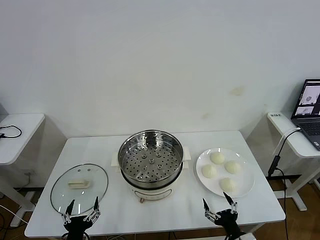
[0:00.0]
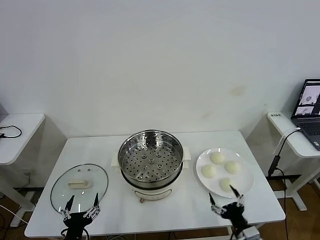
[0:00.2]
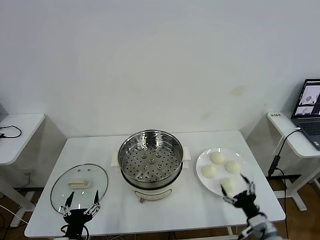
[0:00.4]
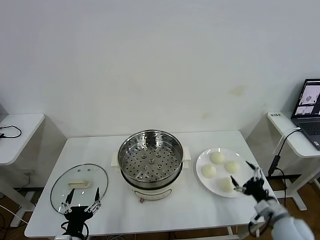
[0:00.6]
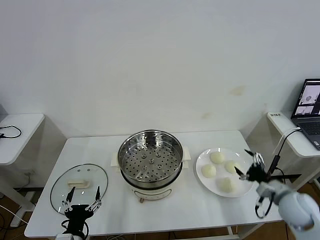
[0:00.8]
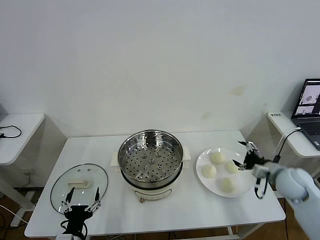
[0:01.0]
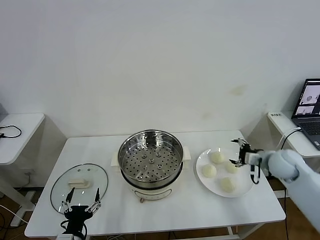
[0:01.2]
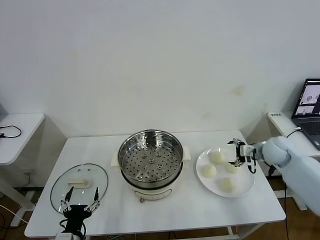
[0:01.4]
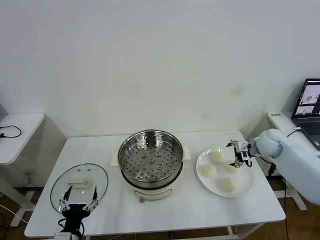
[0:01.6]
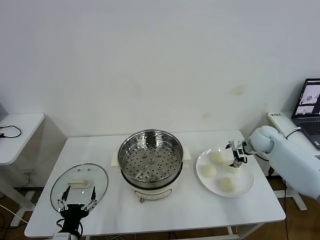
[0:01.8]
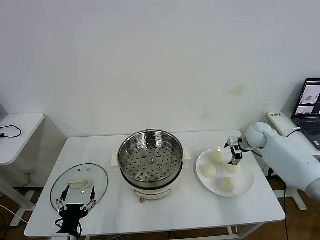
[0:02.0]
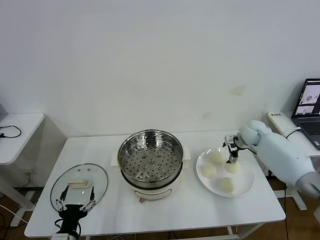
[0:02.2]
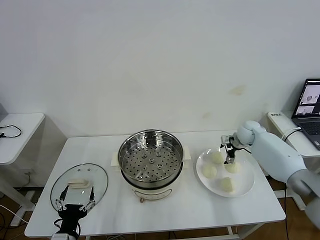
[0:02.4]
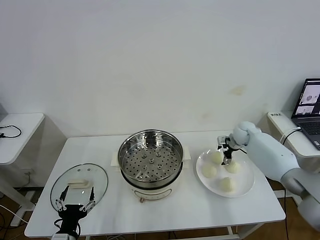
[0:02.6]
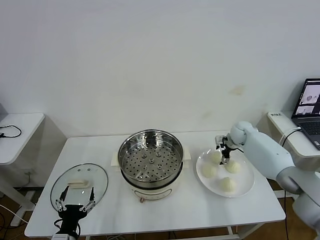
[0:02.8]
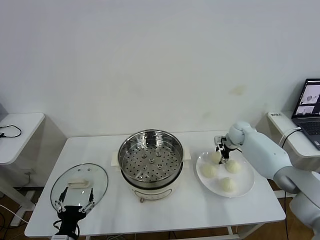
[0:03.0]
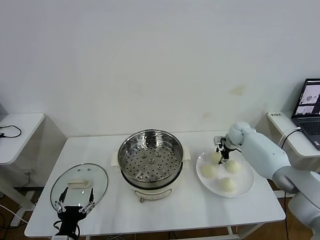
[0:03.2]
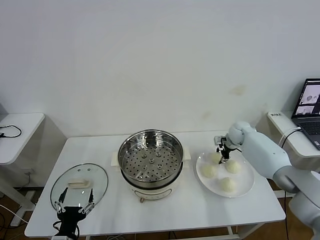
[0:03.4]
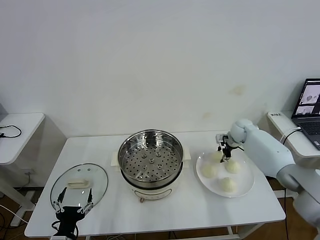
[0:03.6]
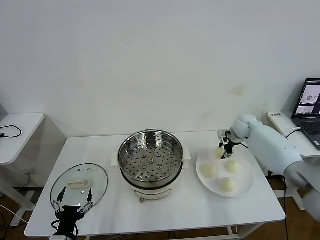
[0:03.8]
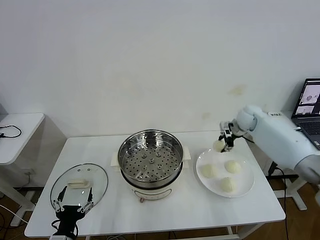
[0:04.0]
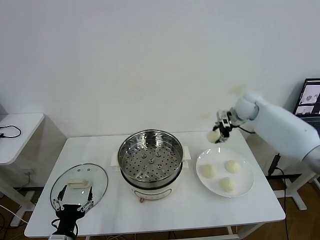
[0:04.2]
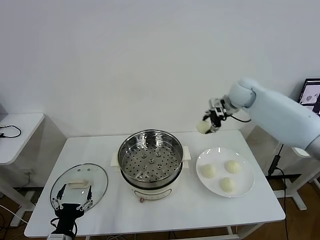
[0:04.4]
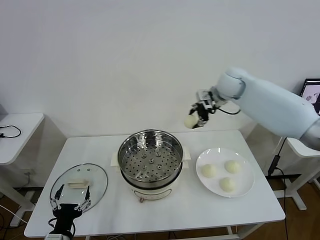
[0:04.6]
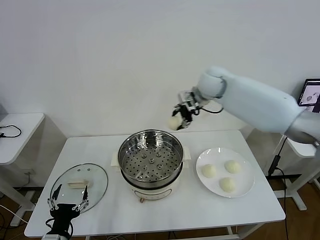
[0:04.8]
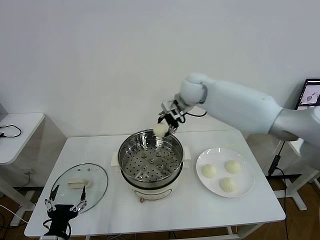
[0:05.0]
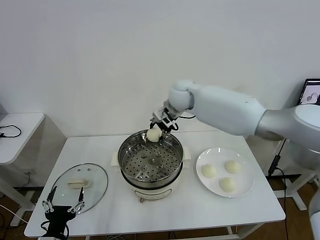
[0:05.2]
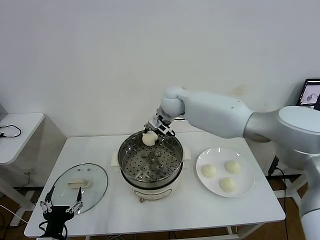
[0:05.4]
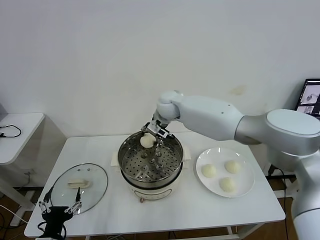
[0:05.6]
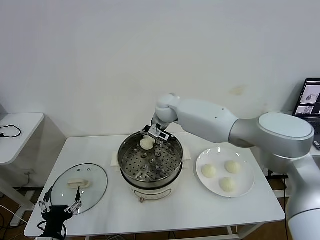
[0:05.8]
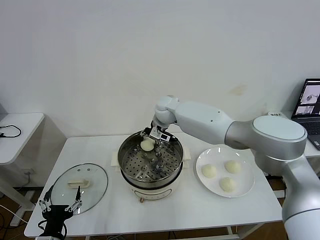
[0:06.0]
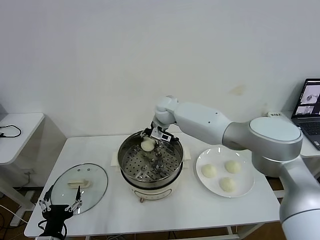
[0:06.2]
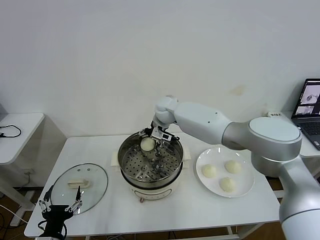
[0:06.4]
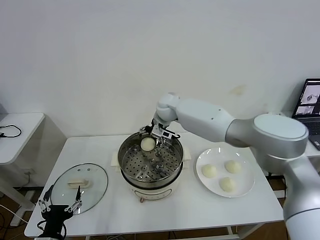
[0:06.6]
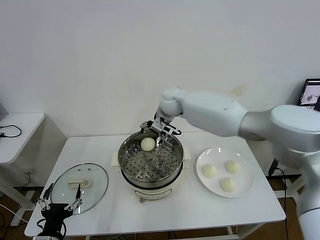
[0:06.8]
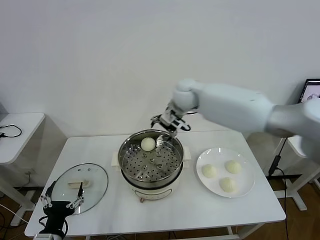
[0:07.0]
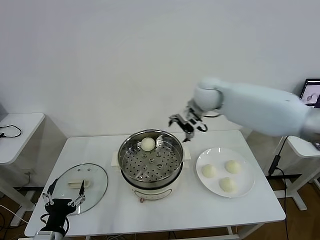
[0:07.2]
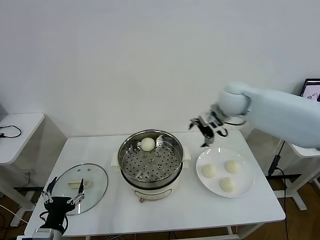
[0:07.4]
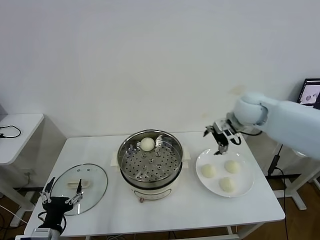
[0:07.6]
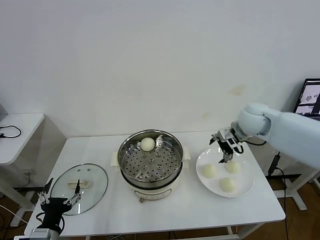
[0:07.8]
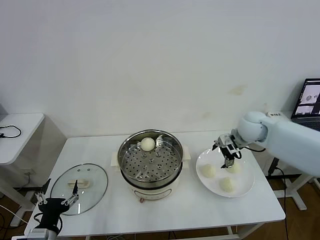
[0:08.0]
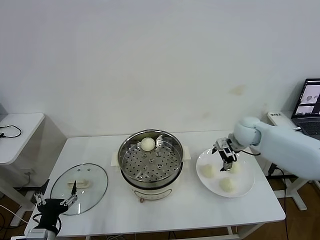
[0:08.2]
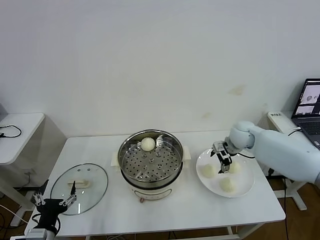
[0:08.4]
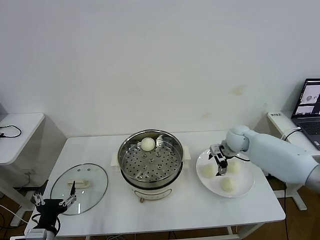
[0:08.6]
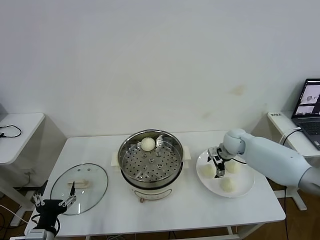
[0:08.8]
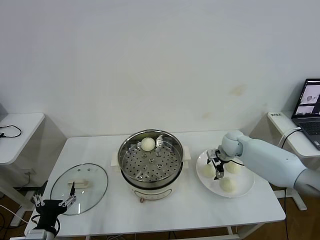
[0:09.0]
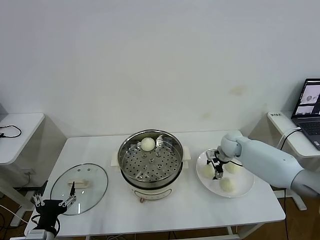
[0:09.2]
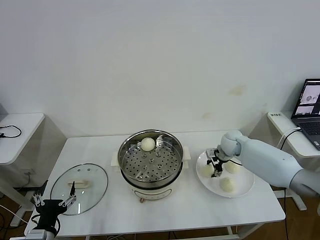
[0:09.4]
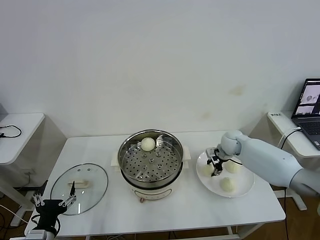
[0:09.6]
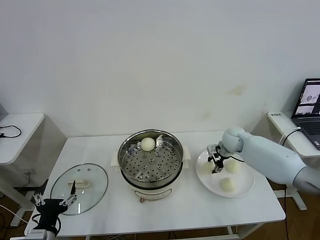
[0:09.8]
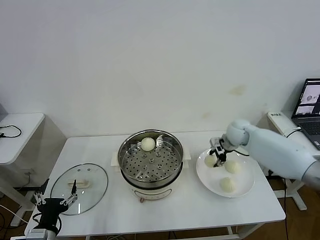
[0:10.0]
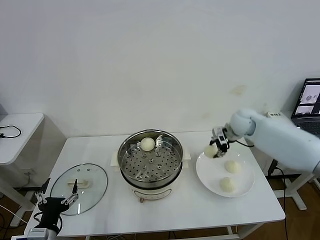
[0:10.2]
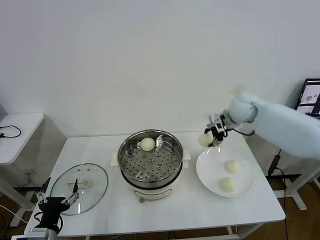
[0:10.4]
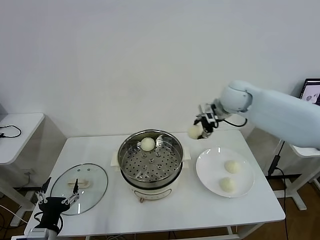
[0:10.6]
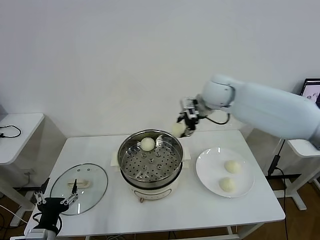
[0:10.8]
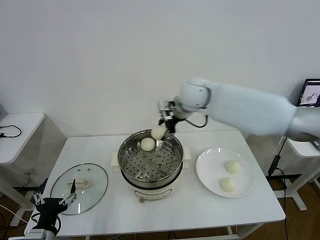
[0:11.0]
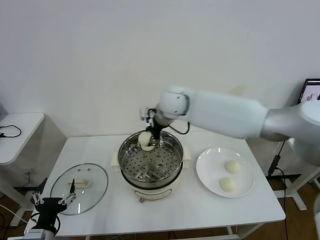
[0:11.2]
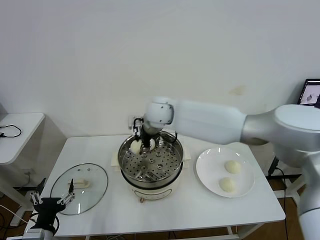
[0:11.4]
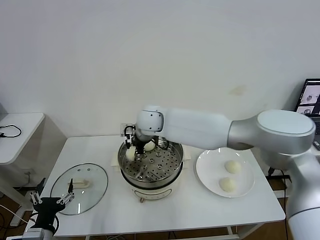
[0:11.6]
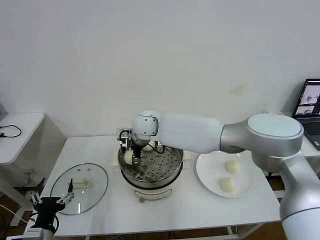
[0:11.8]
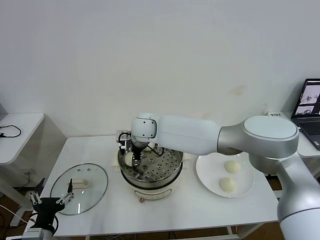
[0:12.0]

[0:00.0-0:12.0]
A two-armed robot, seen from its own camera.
Task of the whole recording: take steamed baozi put them in steamer then cover it.
Step, 0:00.0 to 0:03.0: Grasp the baozi in the plate with right gripper.
Step, 0:03.2 to 0:06.4: Place the baozi on the steamer with right gripper.
Step, 0:06.6 to 0:09.4: Grasp the baozi in the plate with right gripper.
0:01.6 to 0:03.0: The right gripper shifts approximately 15 cm forward, to the left and downward, and closes.
0:03.0 to 0:04.4: The right gripper is displaced upward by about 20 cm, and closes up.
0:04.4 to 0:06.0: The right gripper travels to the left by roughly 25 cm.
0:06.0 to 0:07.6: The right gripper shifts roughly 25 cm to the right, and opens up.
0:07.6 to 0:09.0: The right gripper travels downward by roughly 20 cm.
0:09.0 to 0:10.4: The right gripper heads upward, covering roughly 15 cm, and closes its fingers.
0:10.4 to 0:12.0: The right gripper moves to the left, some 35 cm.

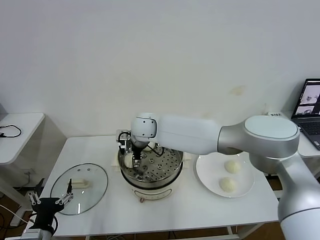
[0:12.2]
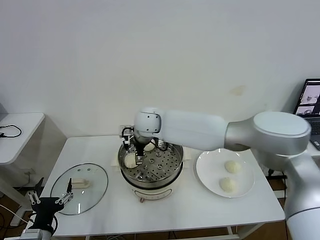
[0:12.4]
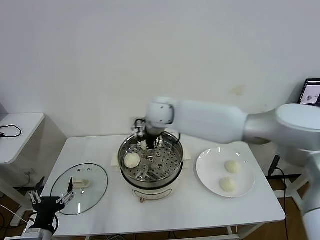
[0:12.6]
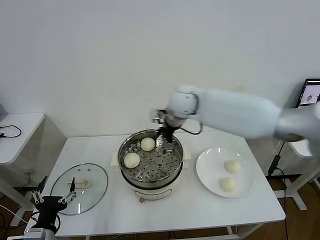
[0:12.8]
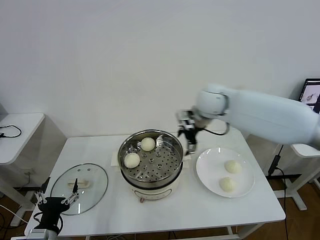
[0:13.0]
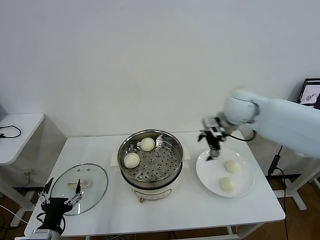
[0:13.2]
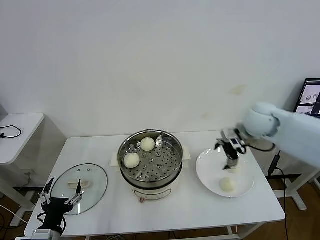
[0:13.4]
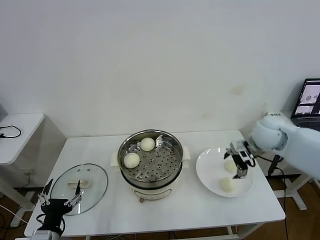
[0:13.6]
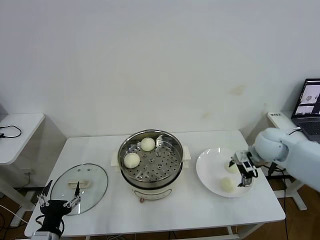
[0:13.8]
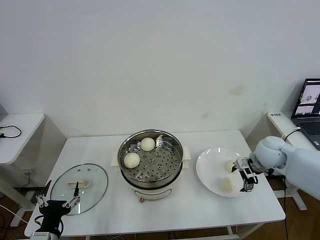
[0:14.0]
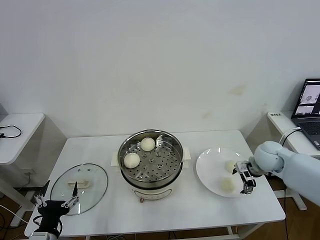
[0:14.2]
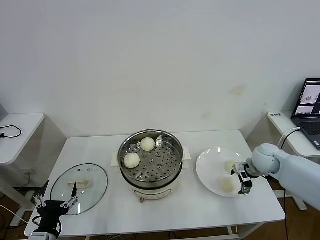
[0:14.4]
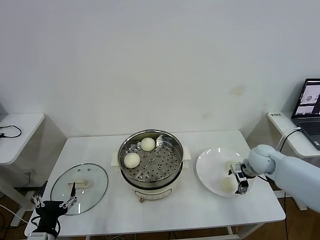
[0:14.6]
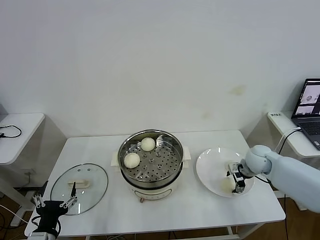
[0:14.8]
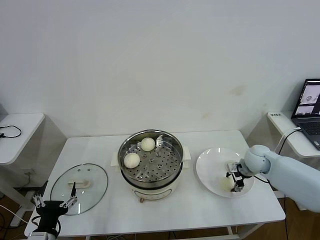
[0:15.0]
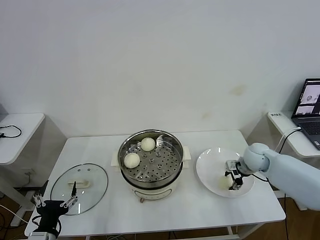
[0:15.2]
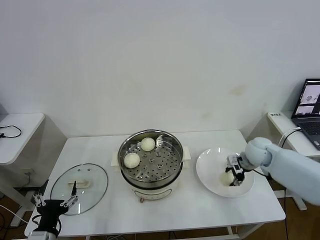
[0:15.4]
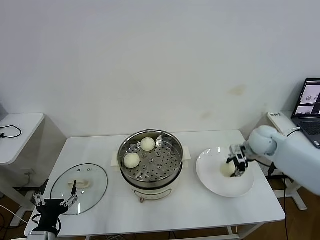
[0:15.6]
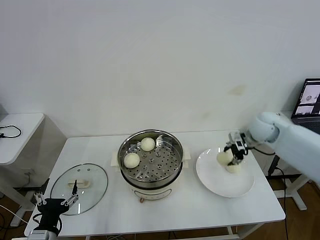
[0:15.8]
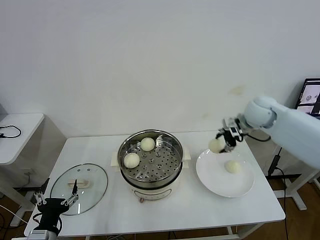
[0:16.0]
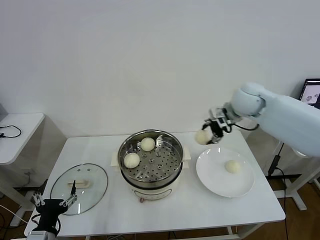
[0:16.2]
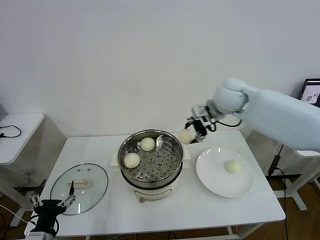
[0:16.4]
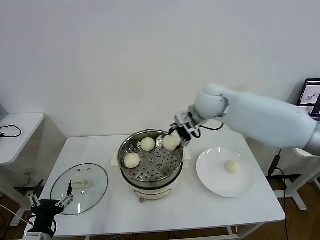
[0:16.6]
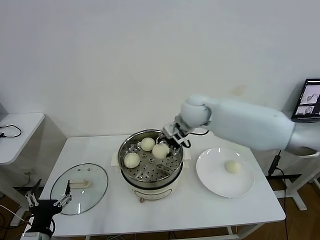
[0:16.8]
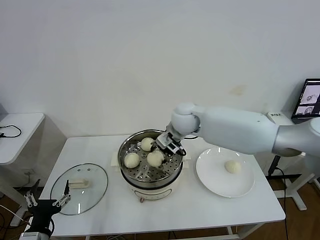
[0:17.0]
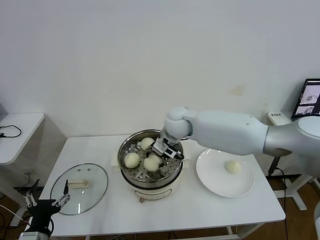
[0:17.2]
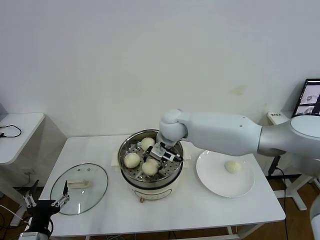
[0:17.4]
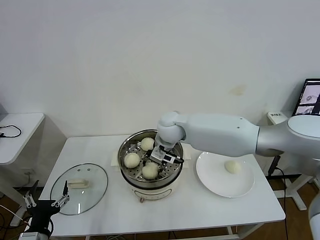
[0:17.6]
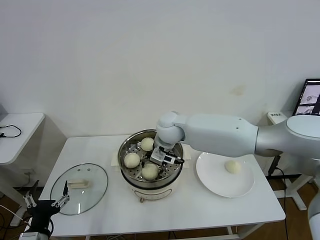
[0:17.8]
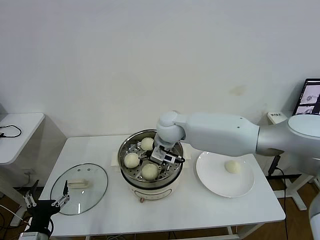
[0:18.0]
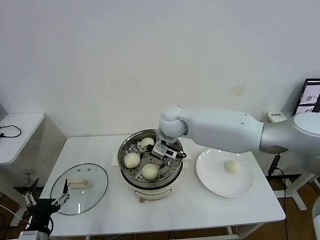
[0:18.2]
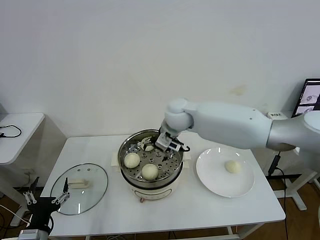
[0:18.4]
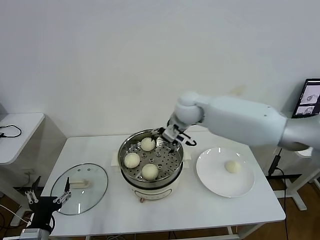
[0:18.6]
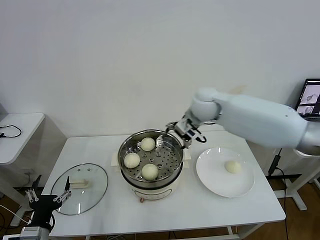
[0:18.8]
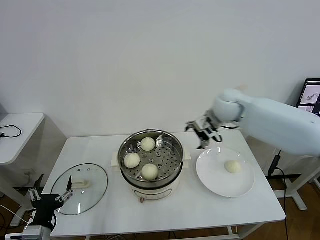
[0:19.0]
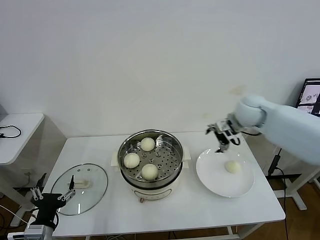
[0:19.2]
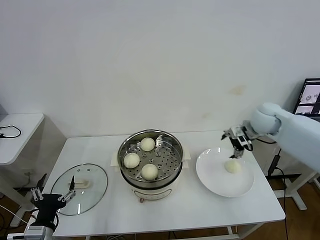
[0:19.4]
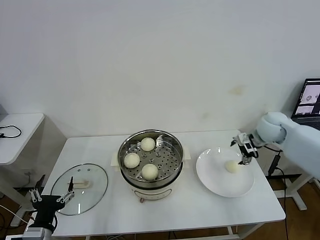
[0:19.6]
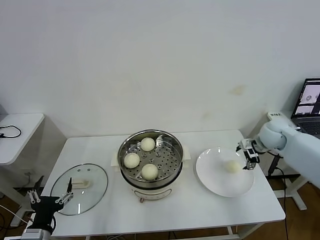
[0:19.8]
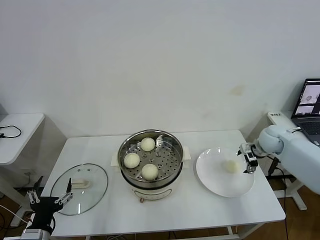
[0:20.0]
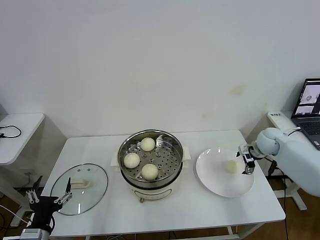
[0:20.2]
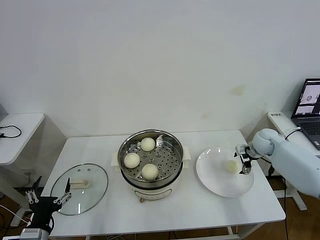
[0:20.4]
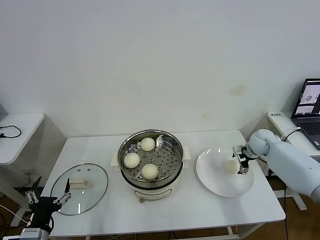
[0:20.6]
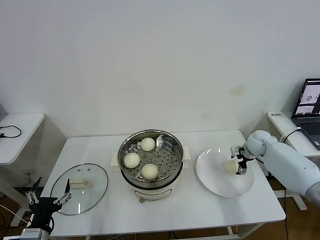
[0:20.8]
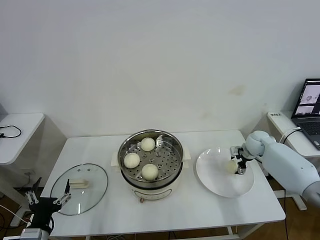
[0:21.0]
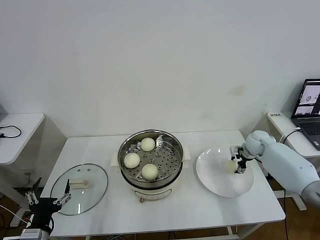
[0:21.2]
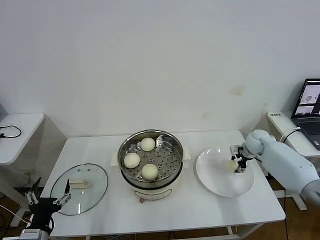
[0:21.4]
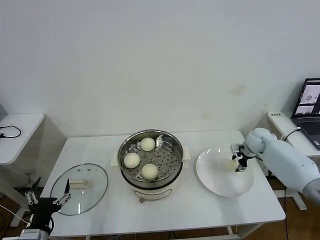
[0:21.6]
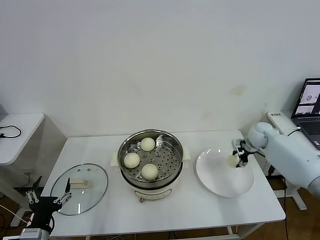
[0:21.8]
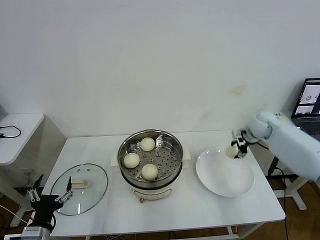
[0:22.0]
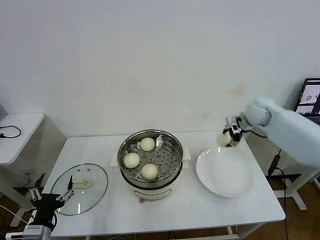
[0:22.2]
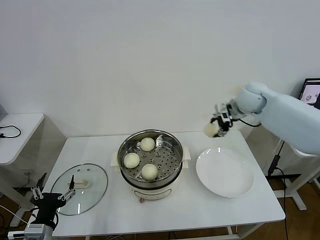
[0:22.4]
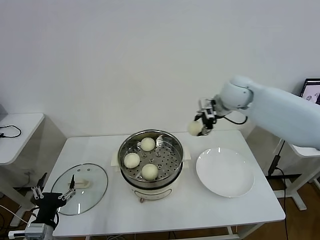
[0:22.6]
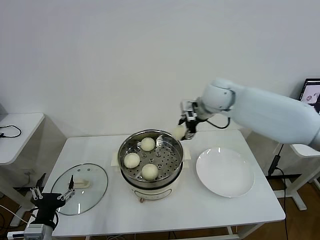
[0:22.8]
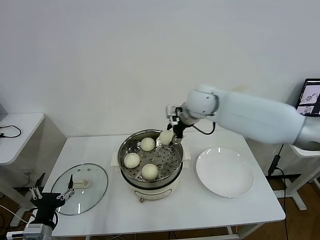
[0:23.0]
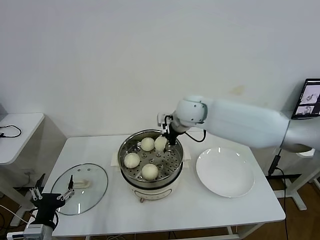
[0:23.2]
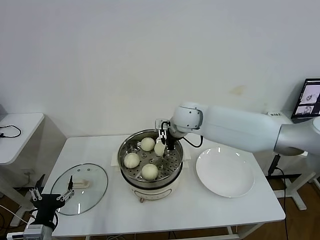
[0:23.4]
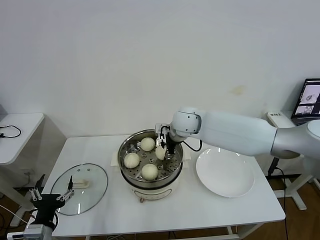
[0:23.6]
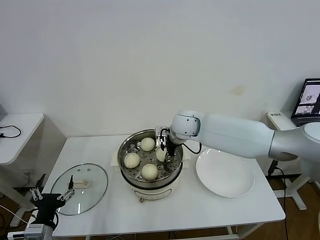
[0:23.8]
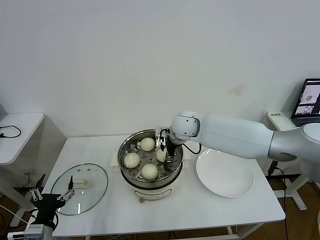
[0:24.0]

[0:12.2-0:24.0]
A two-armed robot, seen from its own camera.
Task of the whole recording: take steamed baozi put them in steamer then cover it.
Step, 0:12.4 to 0:14.8: Grasp the baozi in the plate with right gripper.
Step, 0:15.2 to 0:17.8: Place the baozi on the steamer with right gripper.
Step, 0:18.0 to 0:21.2: Grasp the baozi in the plate with right gripper.
0:12.2 to 0:13.6: The right gripper goes approximately 40 cm to the right, and opens up.
0:13.6 to 0:15.2: The right gripper travels downward by some 15 cm, and closes up.
0:15.2 to 0:16.6: The right gripper heads upward and to the left, covering roughly 30 cm.
0:16.6 to 0:18.2: The right gripper shifts some 15 cm to the left and downward, and opens.
0:18.2 to 0:19.6: The right gripper is displaced to the right by roughly 35 cm.
0:19.6 to 0:21.0: The right gripper is displaced downward by some 15 cm.
0:21.0 to 0:22.6: The right gripper goes about 30 cm upward and to the left, and closes its fingers.
0:22.6 to 0:24.0: The right gripper goes about 20 cm to the left and downward.
